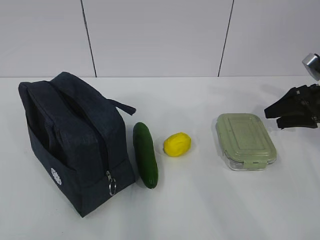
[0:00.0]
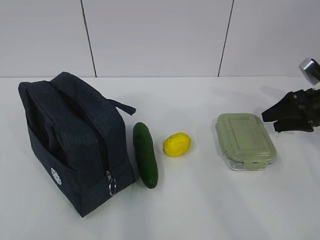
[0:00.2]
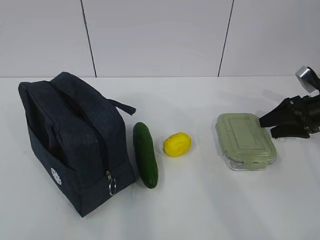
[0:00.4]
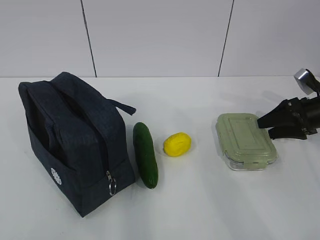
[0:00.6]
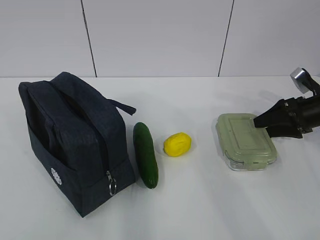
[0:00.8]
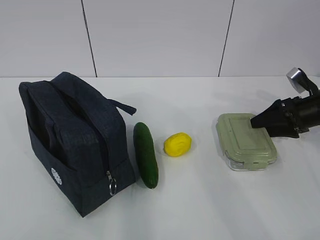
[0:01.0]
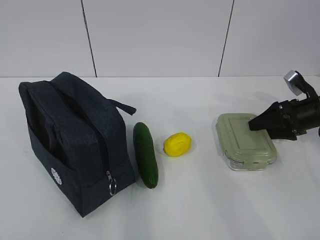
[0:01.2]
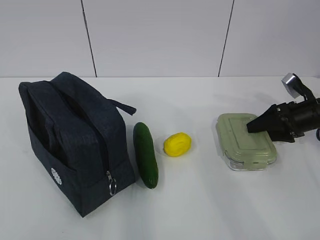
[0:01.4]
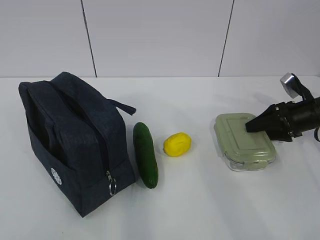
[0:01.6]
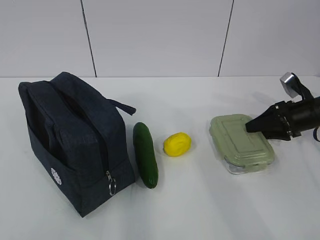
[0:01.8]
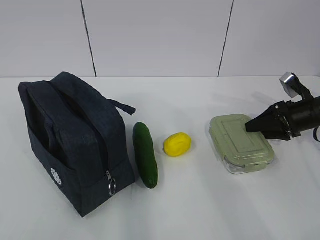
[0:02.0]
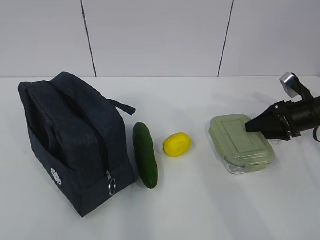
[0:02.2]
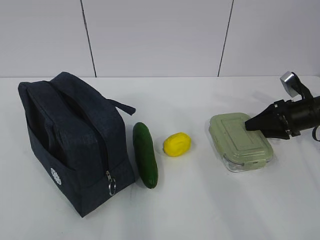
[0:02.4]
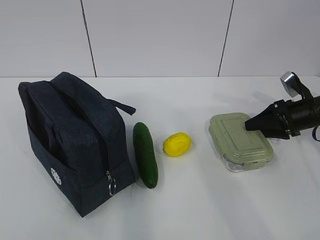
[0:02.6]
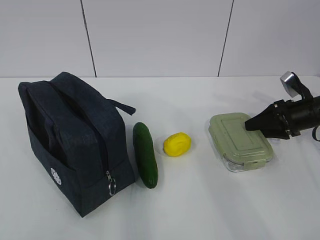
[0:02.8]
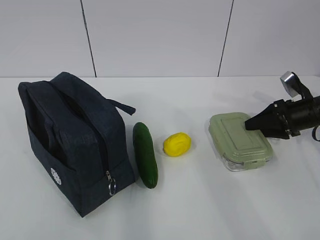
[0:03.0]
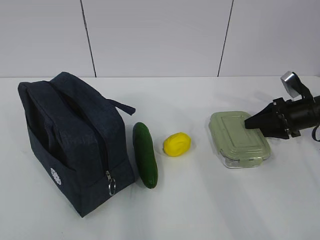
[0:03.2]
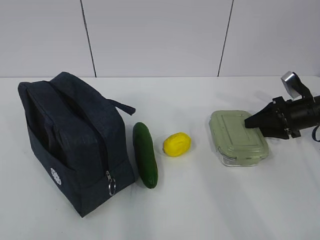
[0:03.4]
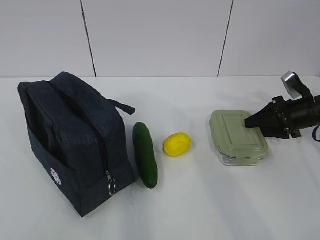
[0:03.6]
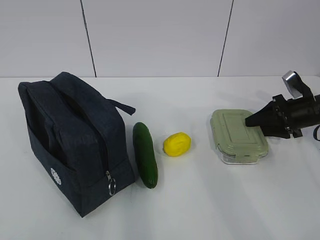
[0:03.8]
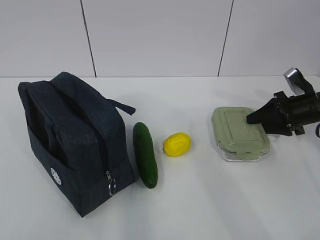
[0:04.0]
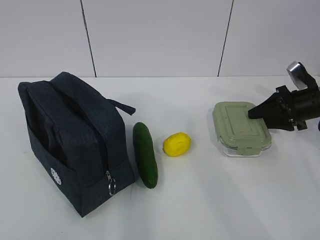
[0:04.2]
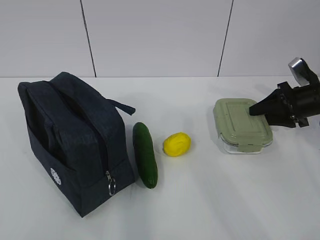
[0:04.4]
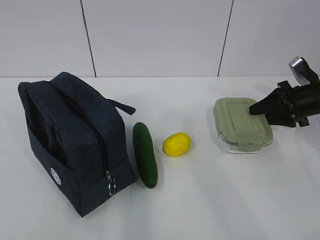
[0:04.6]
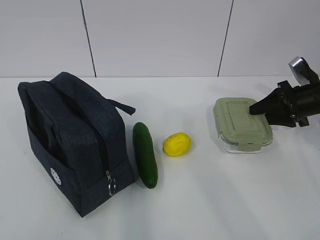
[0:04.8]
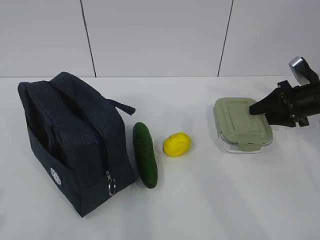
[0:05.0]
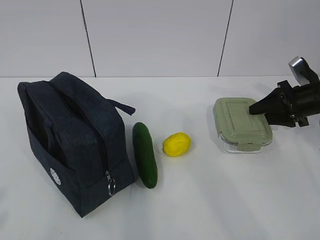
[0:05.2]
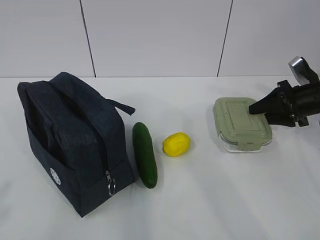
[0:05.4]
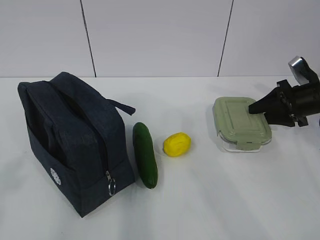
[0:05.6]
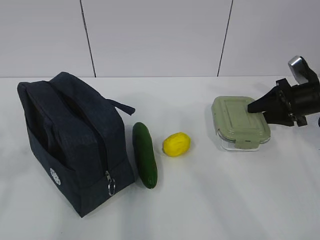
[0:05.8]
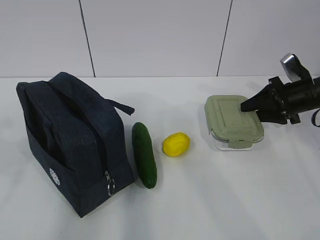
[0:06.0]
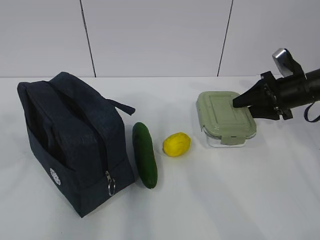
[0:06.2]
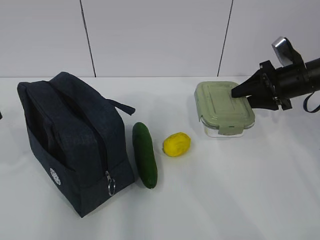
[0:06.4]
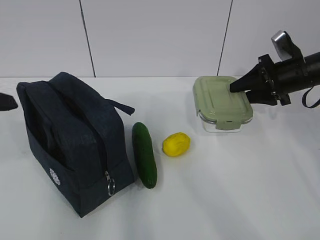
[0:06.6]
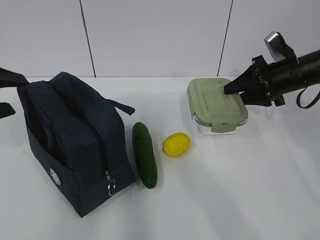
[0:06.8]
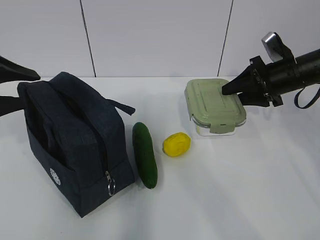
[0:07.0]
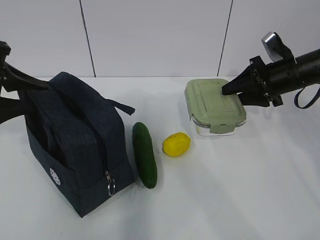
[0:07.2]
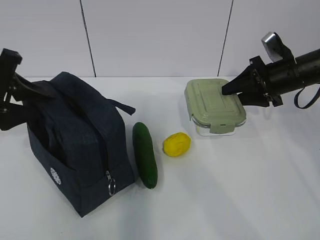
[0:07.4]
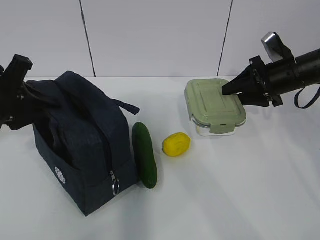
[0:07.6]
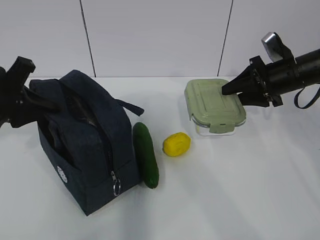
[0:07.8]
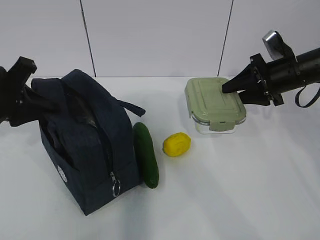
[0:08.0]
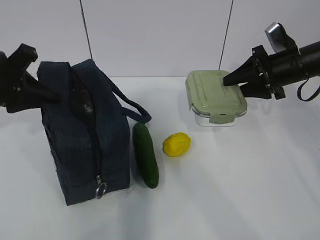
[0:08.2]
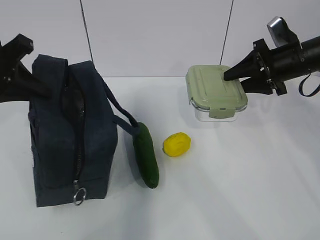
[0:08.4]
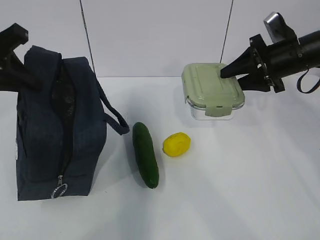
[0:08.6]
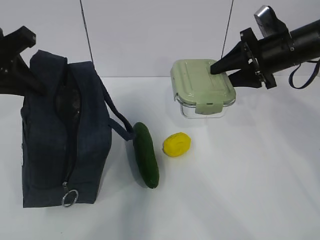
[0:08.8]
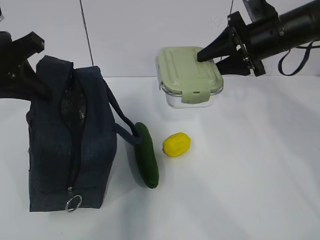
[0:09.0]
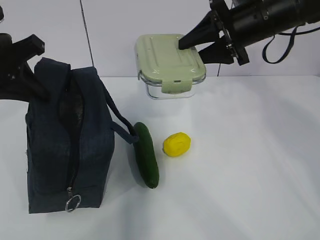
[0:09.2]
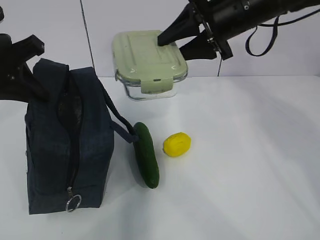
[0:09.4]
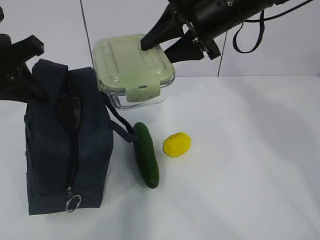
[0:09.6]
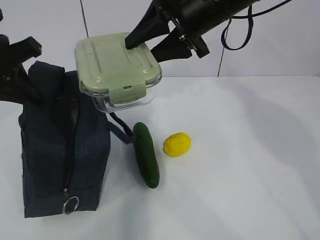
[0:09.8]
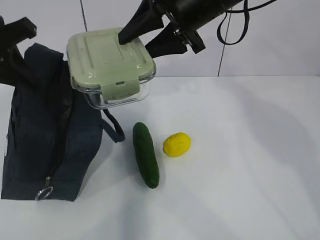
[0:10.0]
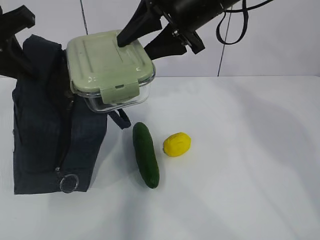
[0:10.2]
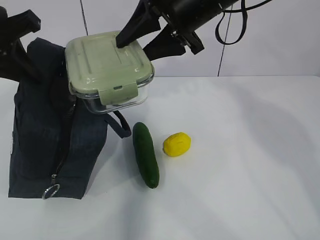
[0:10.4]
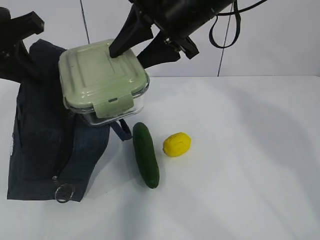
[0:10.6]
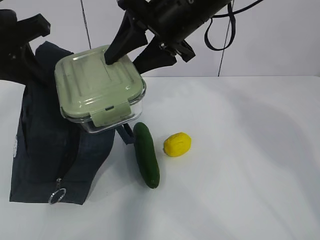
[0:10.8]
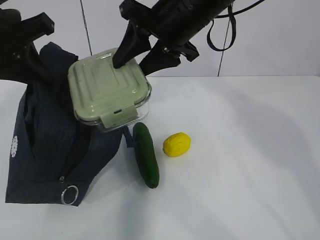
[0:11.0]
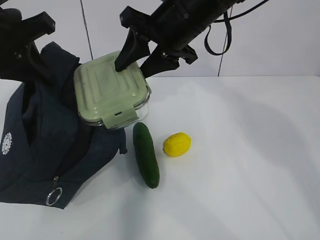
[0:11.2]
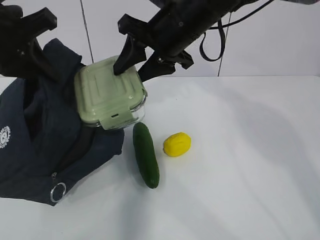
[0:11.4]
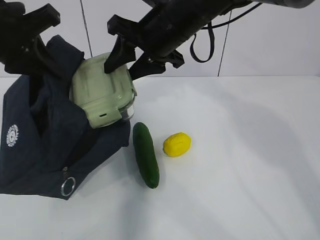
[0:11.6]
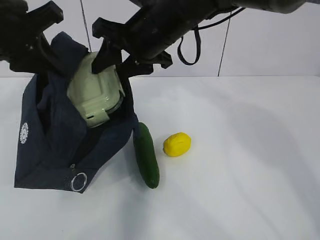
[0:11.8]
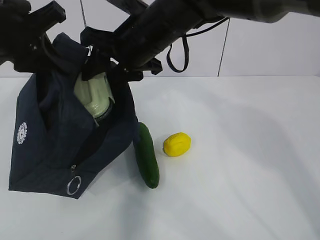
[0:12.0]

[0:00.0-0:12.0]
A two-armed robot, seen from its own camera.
Step, 0:00.0 to 0:02.2: Grab the lunch box with your right hand.
Step, 0:02.4 to 0:08.0: Grab the lunch bag with your left hand.
Step, 0:08.2 to 0:10.4: Place it into the bag with your right hand.
0:00.0 to 0:01.6: The right gripper travels downward by some 5 cm.
0:01.6 to 0:03.0: Neither gripper changes place.
0:03.0 to 0:04.4: There are only small adjustments of the grippers.
0:04.4 to 0:06.0: The left gripper moves forward, some 10 cm.
0:06.0 to 0:07.6: The left gripper travels forward and downward by some 20 cm, and closes up; the right gripper changes place by approximately 5 cm.
0:07.6 to 0:09.0: The right gripper travels upward and to the left by roughly 10 cm; the left gripper shifts some 5 cm upward.
0:09.0 to 0:10.4: The right gripper shifts roughly 15 cm to the left and upward.
0:10.4 to 0:12.0: The right gripper heads to the left and downward, covering roughly 10 cm.

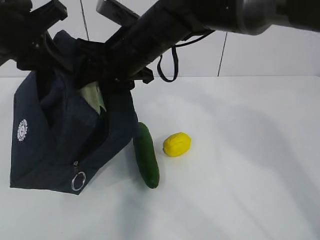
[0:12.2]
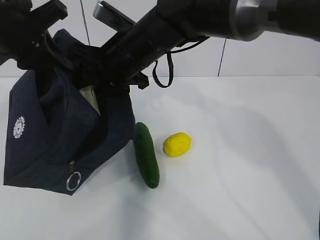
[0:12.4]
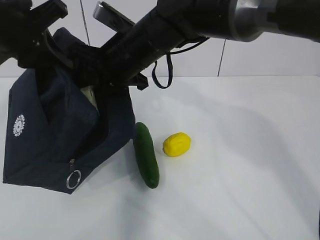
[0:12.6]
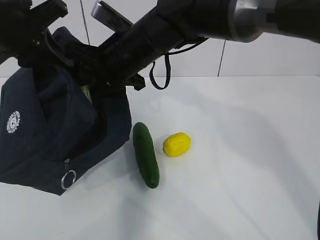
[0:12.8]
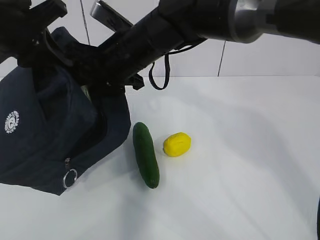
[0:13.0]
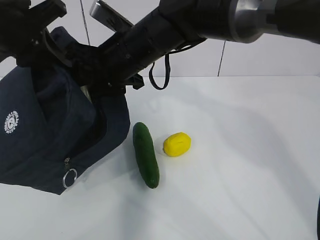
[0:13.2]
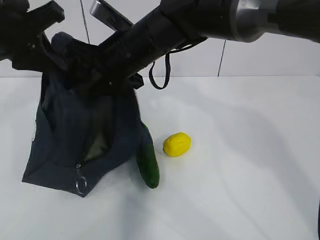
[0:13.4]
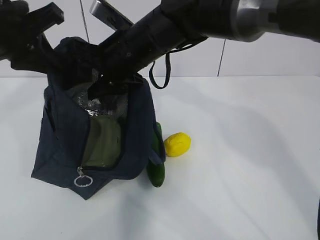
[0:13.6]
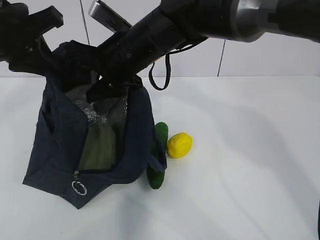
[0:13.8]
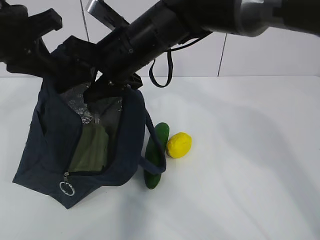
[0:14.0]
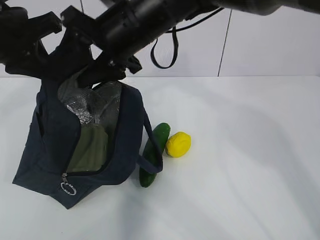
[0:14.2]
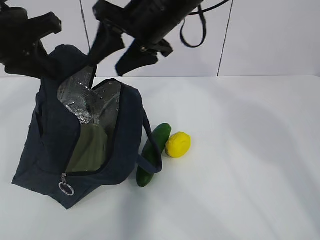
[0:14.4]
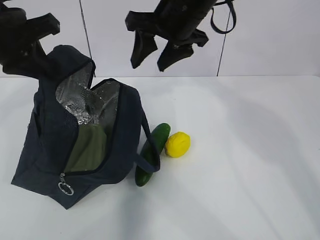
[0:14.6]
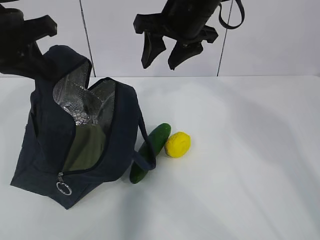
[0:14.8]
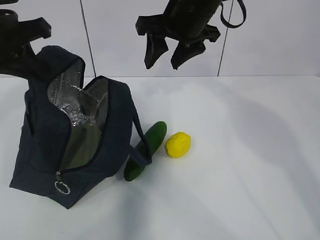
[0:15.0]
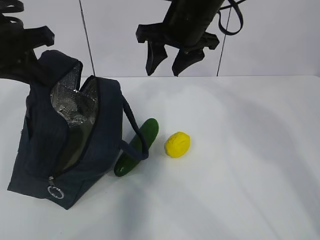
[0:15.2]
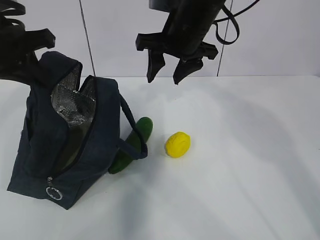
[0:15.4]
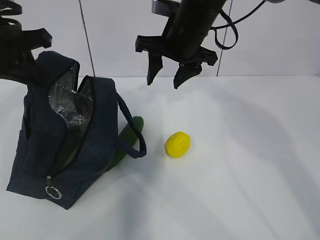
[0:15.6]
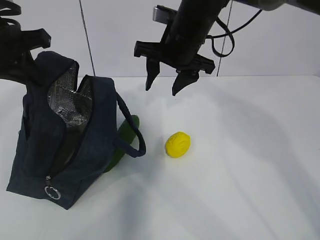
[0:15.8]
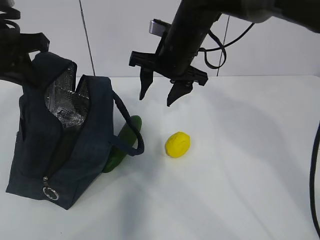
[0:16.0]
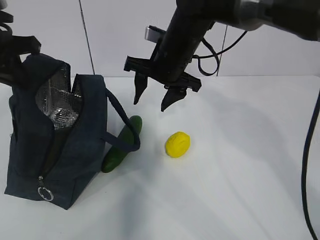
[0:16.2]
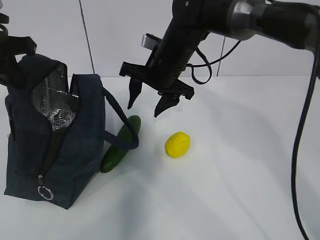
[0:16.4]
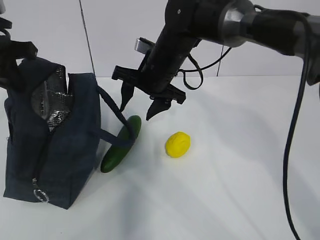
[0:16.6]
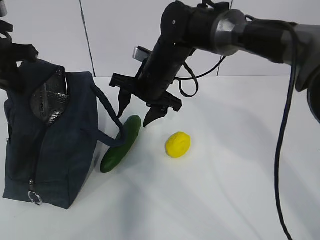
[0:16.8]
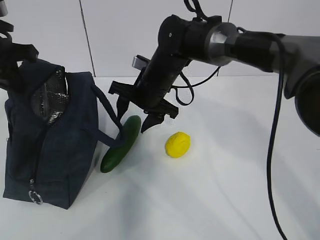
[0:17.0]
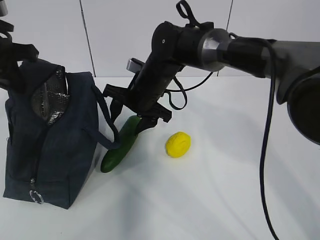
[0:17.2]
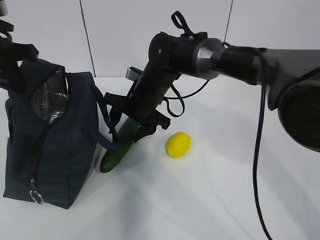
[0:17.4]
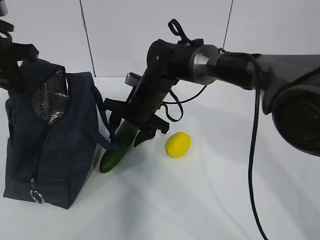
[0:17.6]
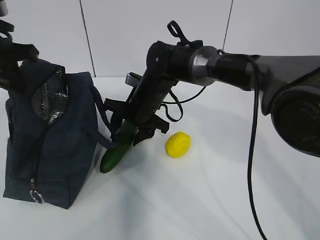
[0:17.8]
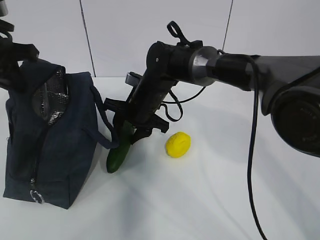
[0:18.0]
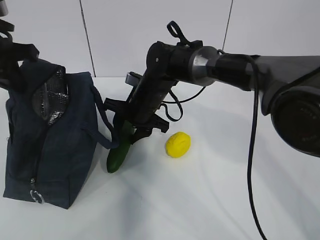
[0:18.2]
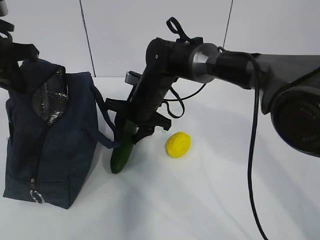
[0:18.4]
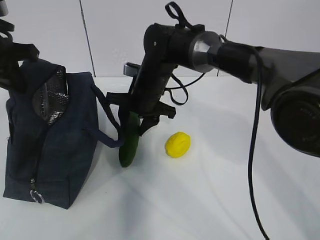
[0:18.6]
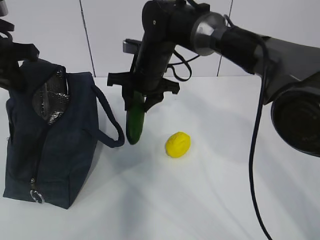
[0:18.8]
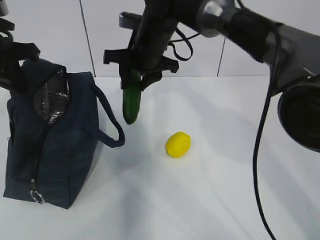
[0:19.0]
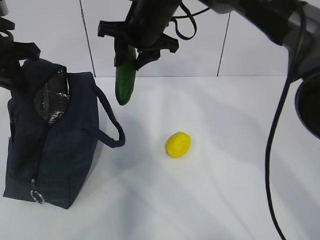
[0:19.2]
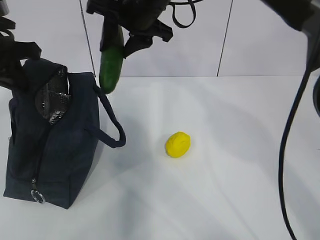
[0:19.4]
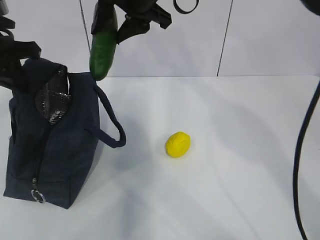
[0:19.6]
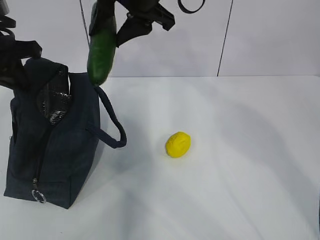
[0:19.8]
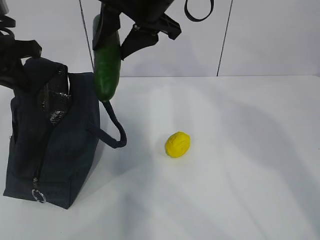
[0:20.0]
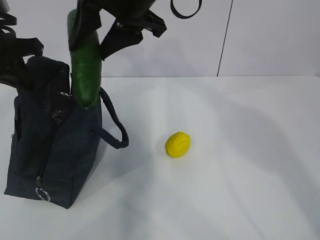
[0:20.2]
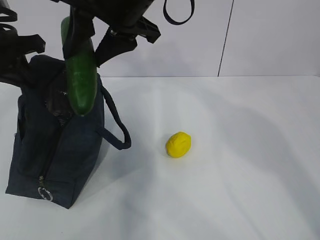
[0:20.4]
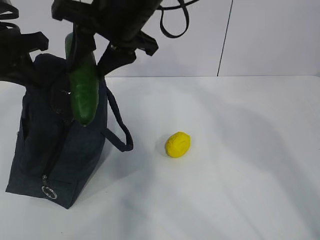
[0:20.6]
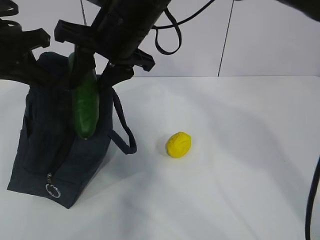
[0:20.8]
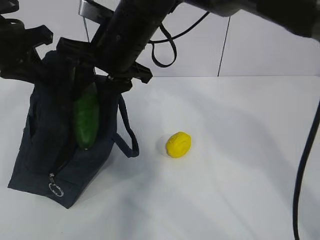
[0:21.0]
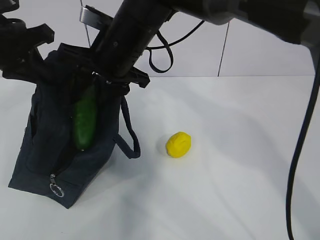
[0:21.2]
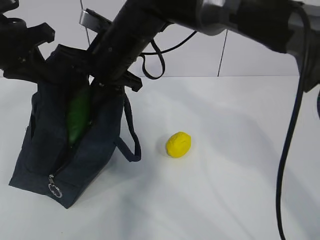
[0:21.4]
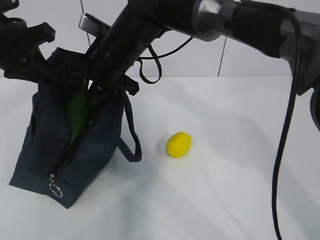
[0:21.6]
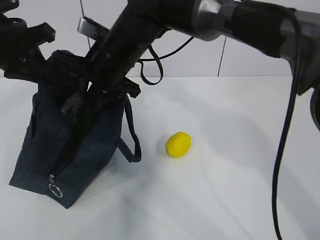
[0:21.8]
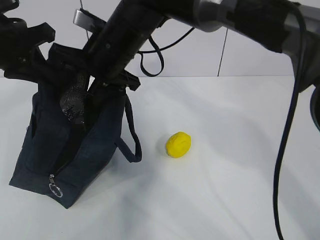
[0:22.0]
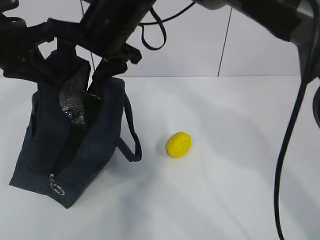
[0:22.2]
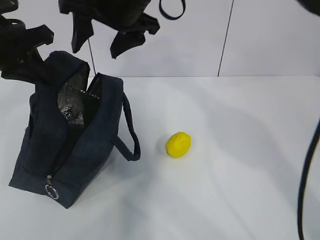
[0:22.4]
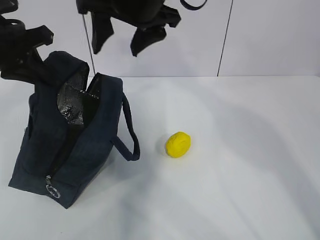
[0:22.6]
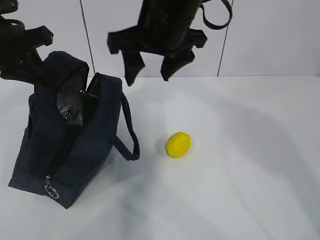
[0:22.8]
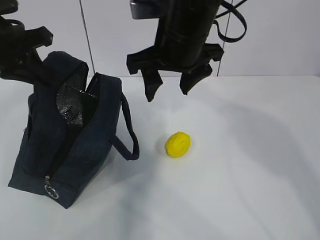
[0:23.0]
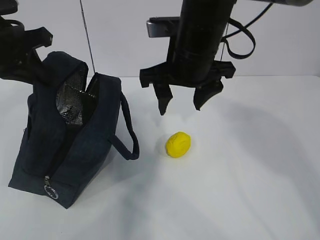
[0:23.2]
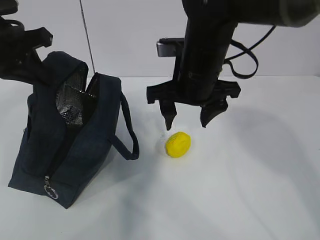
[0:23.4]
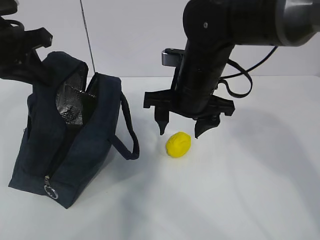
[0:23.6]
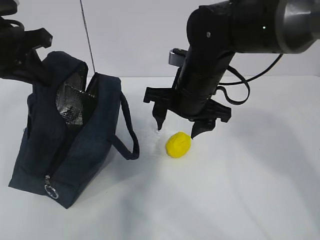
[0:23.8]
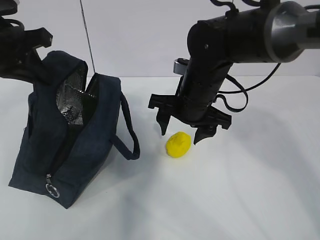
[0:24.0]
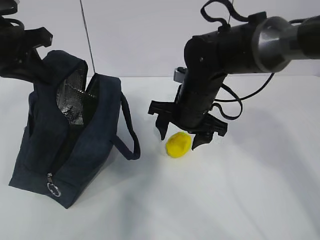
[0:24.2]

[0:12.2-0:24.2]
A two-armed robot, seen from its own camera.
Step, 0:12.2 to 0:14.2: Grab the cucumber with your right hand.
Step, 0:14.4 to 0:17.2: Place it into the bag with your right hand.
Step, 0:17.4 to 0:20.4: Grab the lemon with your right hand.
0:12.2 to 0:13.8: The grippers move only a little.
0:13.8 to 0:15.2: The right gripper is displaced to the right by roughly 10 cm.
0:15.2 to 0:16.6: The right gripper is displaced downward by roughly 10 cm.
0:16.6 to 0:18.2: The right gripper travels downward by some 10 cm.
0:18.2 to 0:19.8: The right gripper heads upward, covering some 25 cm.
0:19.8 to 0:21.2: The right gripper shifts some 10 cm downward.
0:21.2 to 0:22.6: The right gripper shifts some 10 cm upward.
0:22.6 to 0:24.2: The right gripper is displaced downward by some 20 cm.
